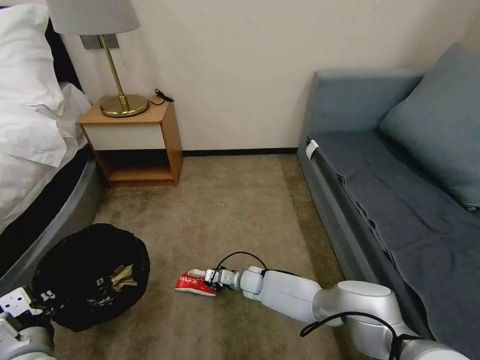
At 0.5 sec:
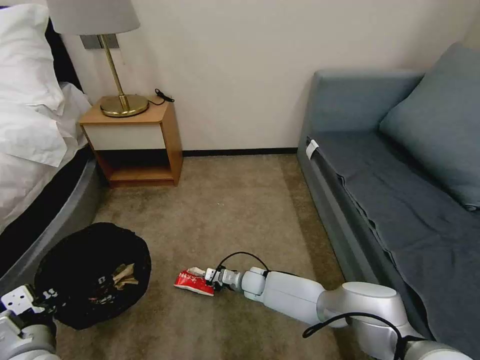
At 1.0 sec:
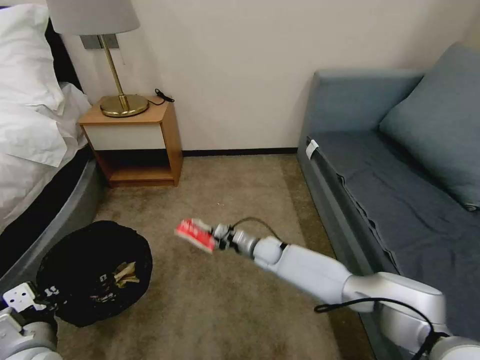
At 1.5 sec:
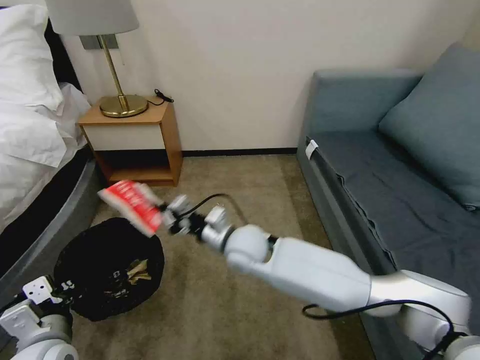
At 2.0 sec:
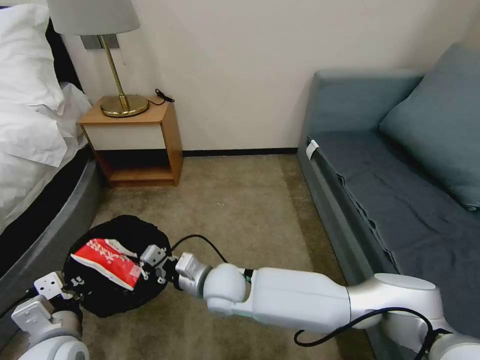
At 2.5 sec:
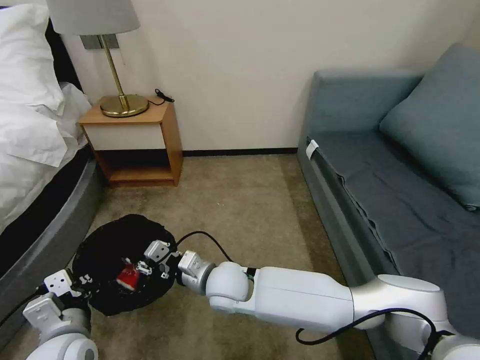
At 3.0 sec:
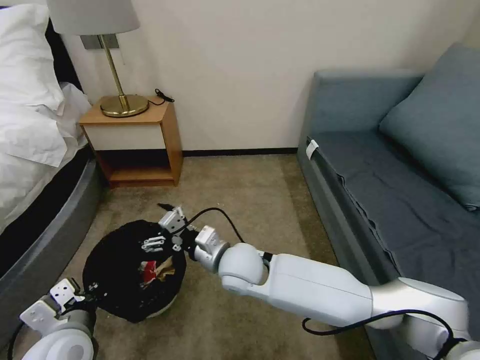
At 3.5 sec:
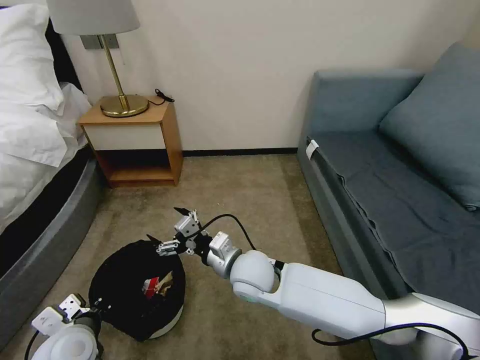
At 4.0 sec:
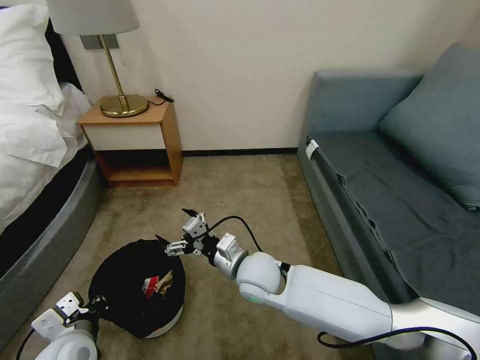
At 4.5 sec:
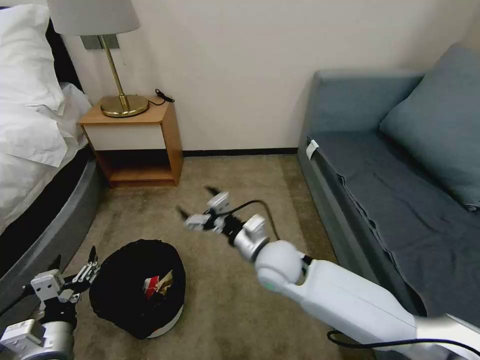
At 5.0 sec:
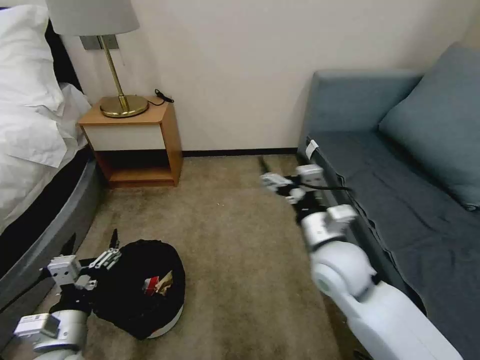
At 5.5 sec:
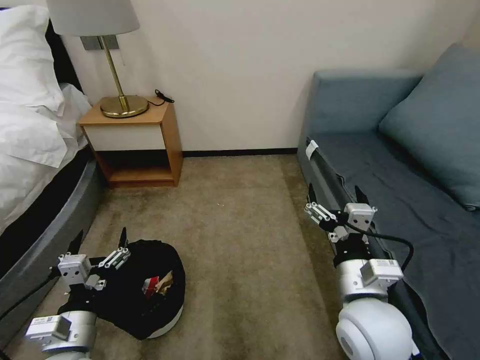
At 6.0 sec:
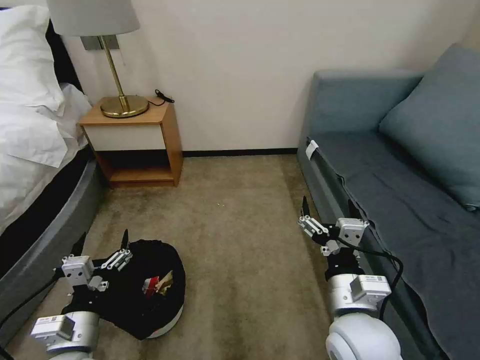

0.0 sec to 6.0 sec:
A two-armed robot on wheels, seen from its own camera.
Task of the whole recording: Pick up the trash bin, then pick up the garbage on the floor and place it into the trash bin.
0.0 sec to 2.0 sec: The right gripper is displaced upward, backward and to the left by about 25 cm, and closes up.
2.0 sec to 4.0 sec: The right gripper travels to the right by some 5 cm, and opens, while the left gripper goes about 5 cm downward.
4.0 sec to 6.0 sec: The right gripper moves to the right, backward and upward, roughly 20 cm, while the left gripper opens.

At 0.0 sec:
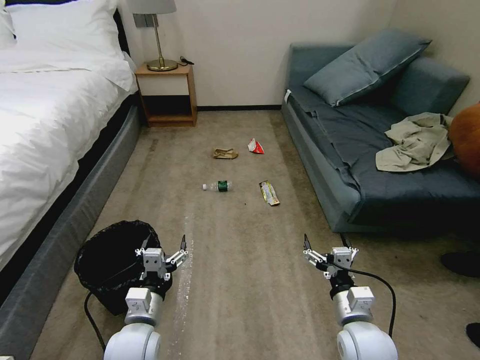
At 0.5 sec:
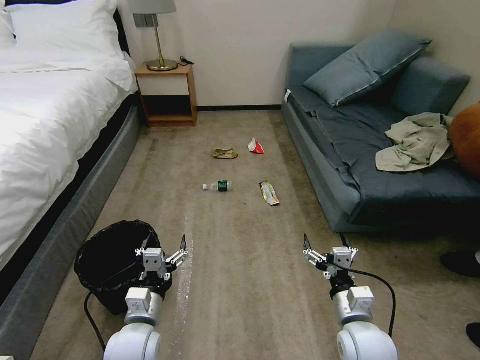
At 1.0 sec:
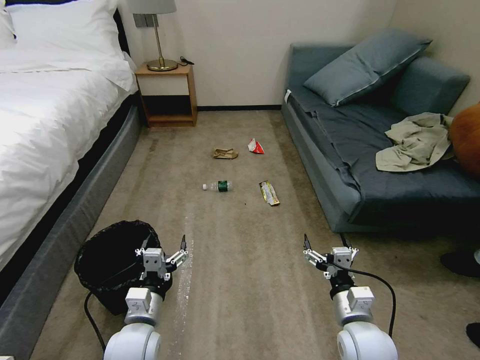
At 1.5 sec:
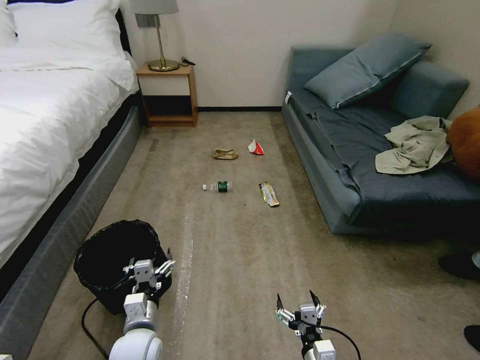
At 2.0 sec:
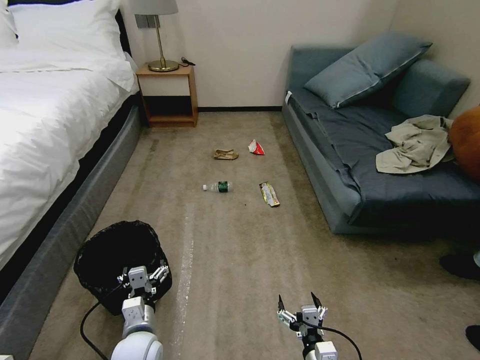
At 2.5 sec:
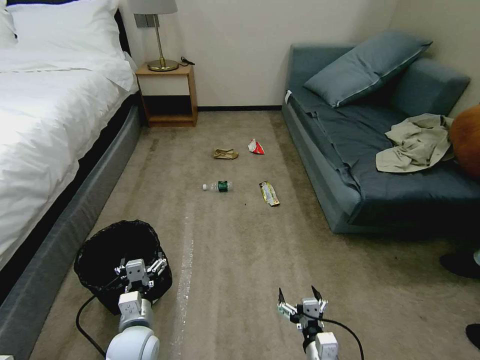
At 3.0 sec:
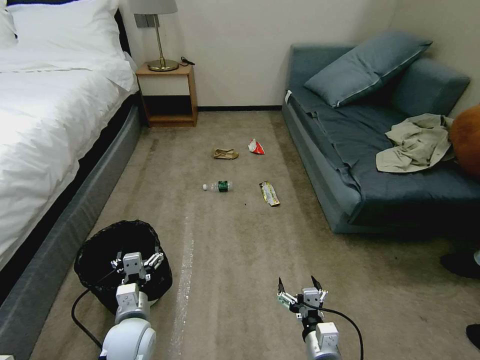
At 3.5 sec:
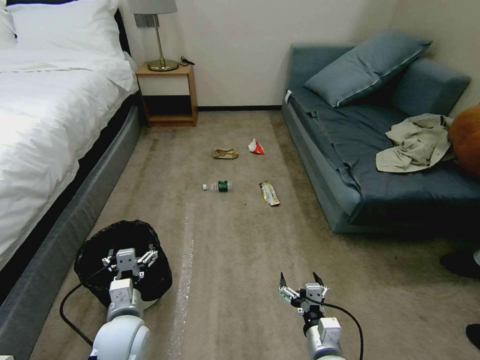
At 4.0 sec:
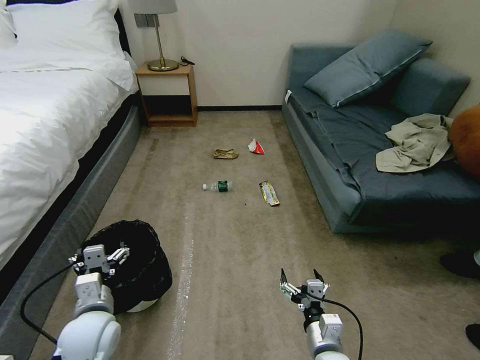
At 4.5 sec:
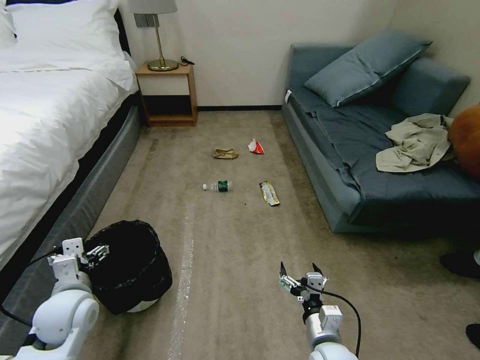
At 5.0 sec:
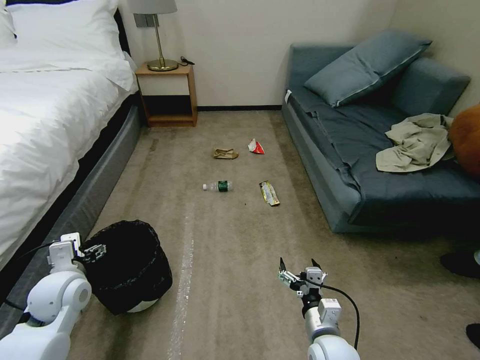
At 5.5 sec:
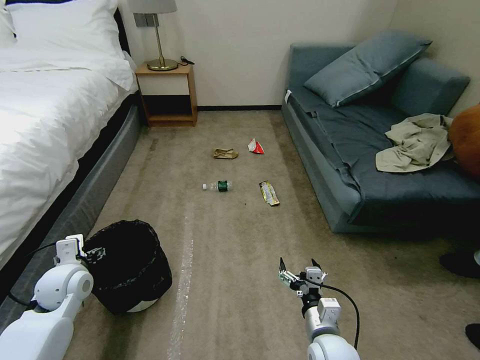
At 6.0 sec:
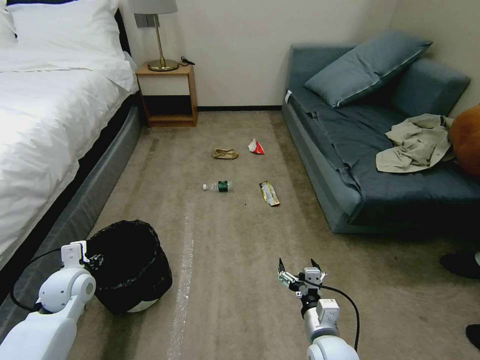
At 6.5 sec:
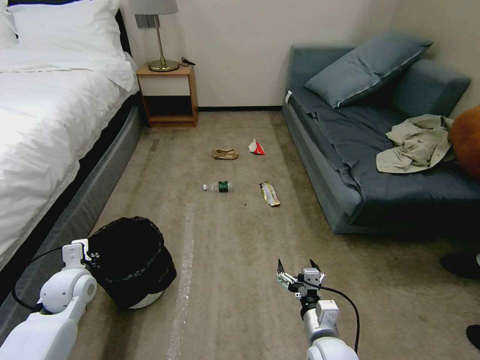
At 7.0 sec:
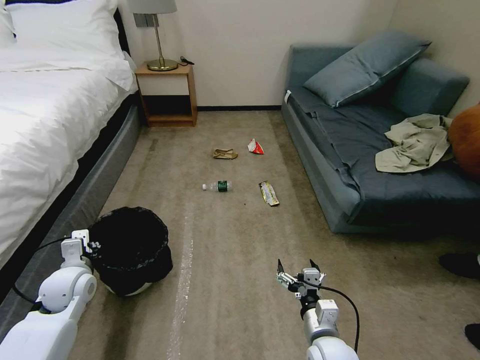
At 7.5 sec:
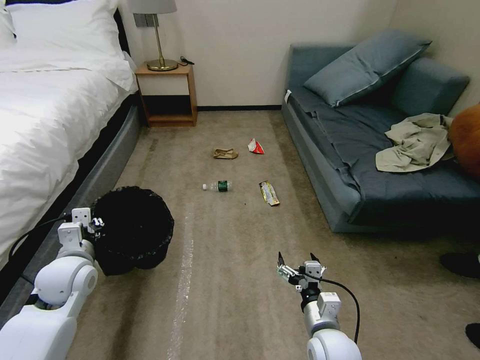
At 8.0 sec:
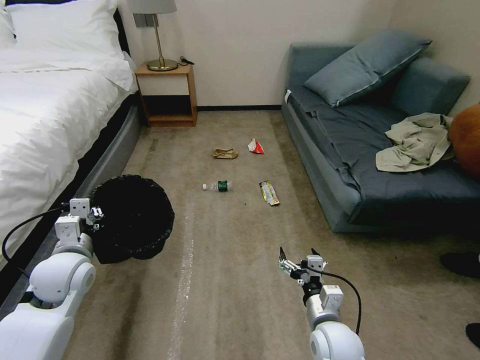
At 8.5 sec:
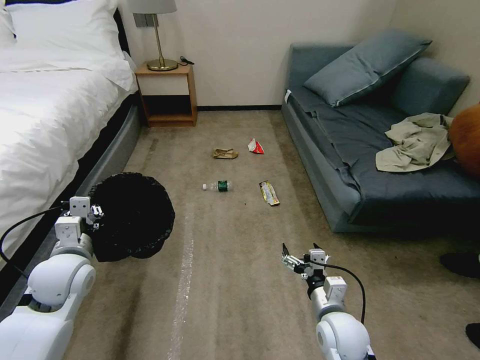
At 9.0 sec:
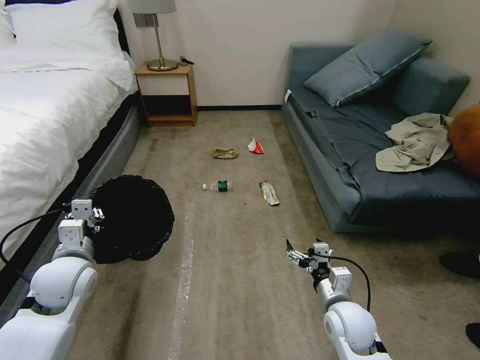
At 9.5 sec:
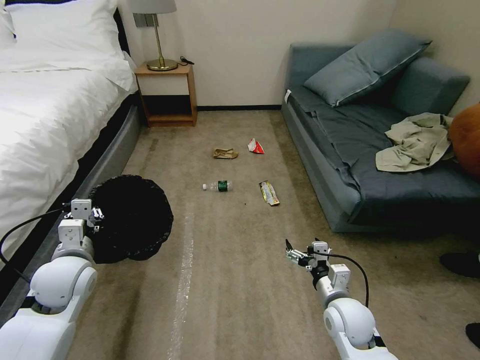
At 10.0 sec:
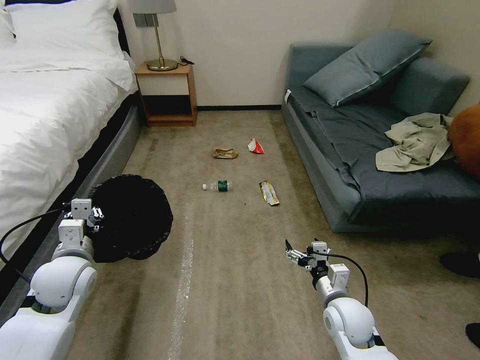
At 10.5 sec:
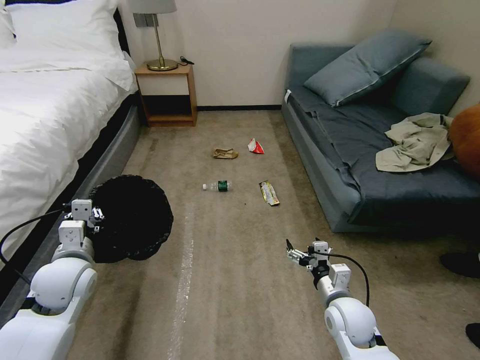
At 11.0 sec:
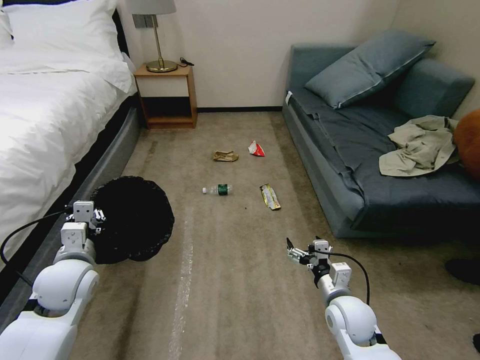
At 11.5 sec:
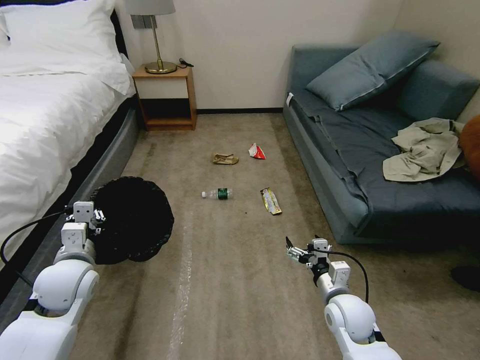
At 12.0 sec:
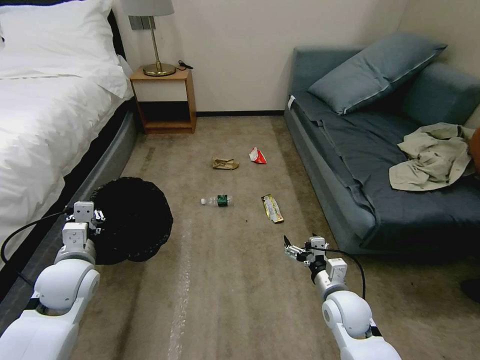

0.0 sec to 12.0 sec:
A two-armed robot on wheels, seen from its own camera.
Task of the whole recording: Pick up the trash bin, then pick up the garbage on the floor and place it into the trash bin.
2.0 sec to 4.0 sec: The left gripper heads upward and to the left, covering some 10 cm. The right gripper shifts approximately 5 cm forward.
4.0 sec to 6.0 sec: The left gripper moves to the left and forward, approximately 15 cm, and closes up.
6.0 sec to 8.0 sec: The left gripper travels upward by some 10 cm, and closes up.
8.0 sec to 10.0 sec: The right gripper ends up about 5 cm from where it was.

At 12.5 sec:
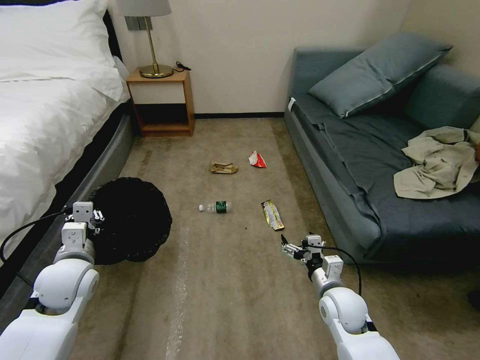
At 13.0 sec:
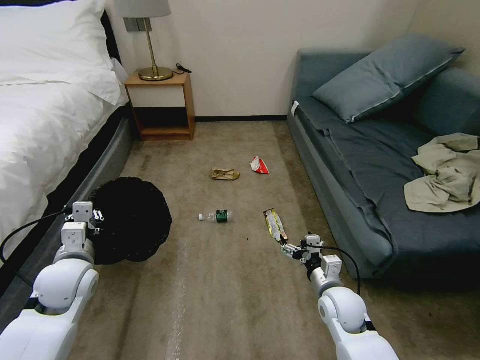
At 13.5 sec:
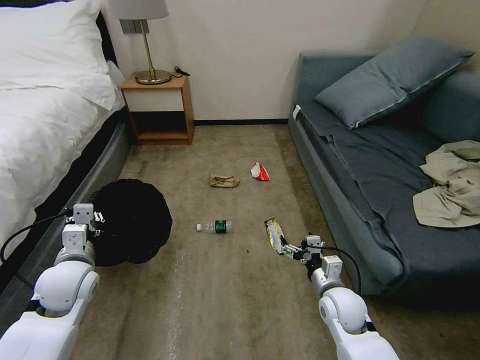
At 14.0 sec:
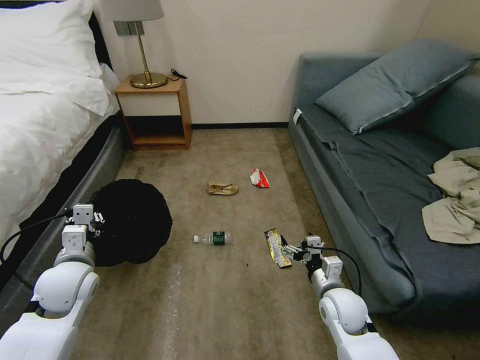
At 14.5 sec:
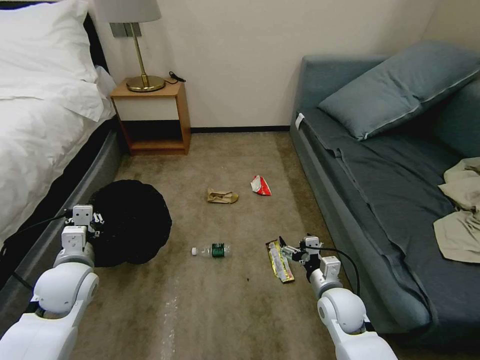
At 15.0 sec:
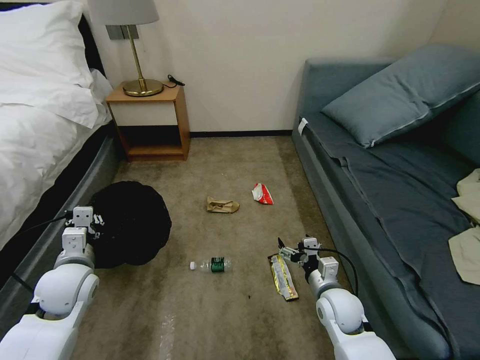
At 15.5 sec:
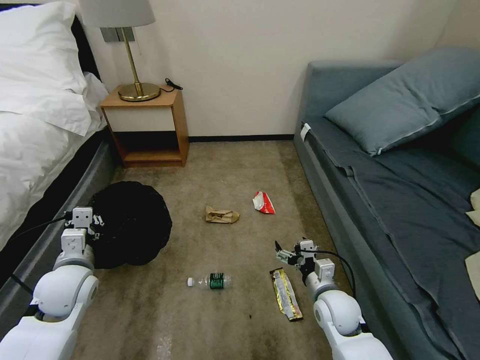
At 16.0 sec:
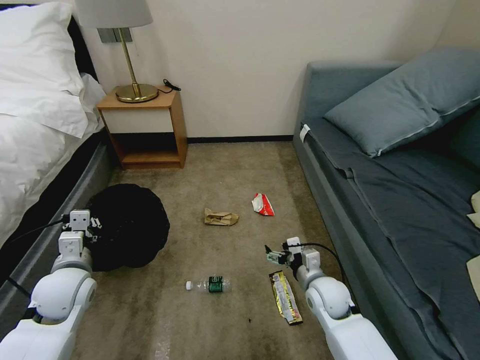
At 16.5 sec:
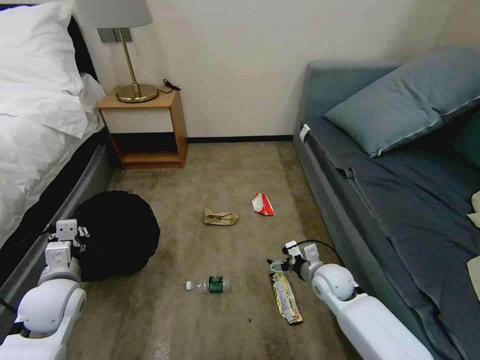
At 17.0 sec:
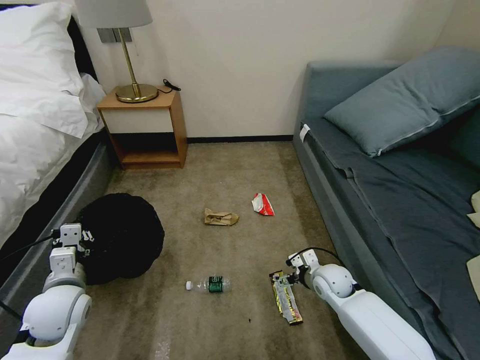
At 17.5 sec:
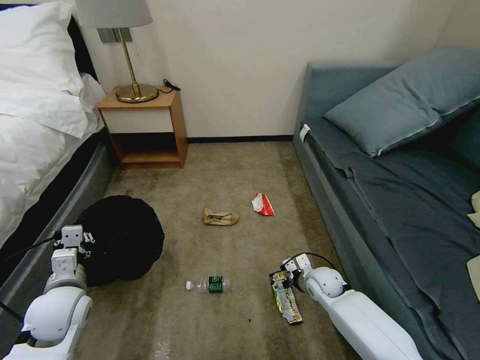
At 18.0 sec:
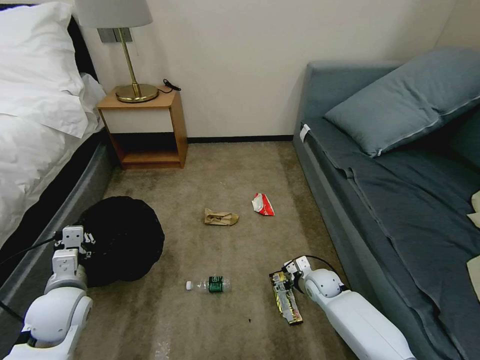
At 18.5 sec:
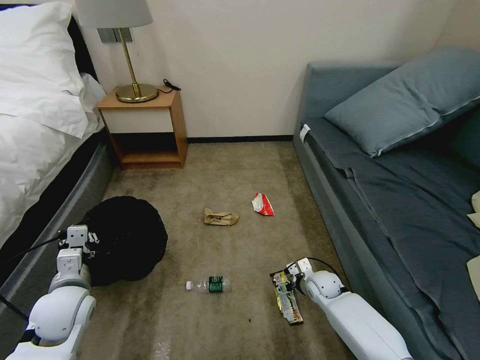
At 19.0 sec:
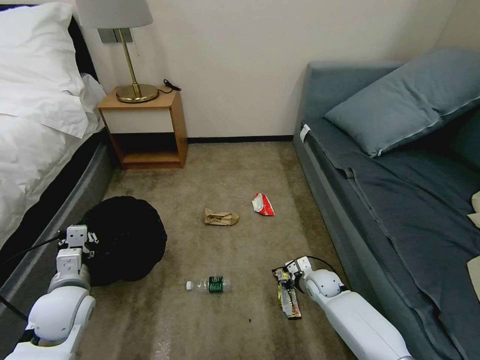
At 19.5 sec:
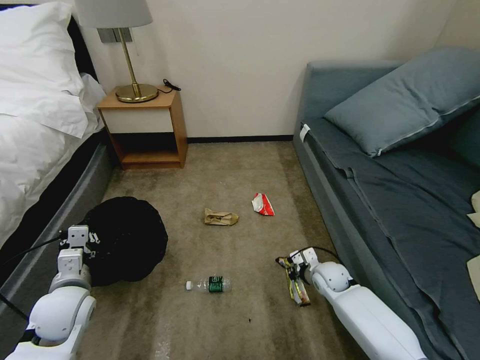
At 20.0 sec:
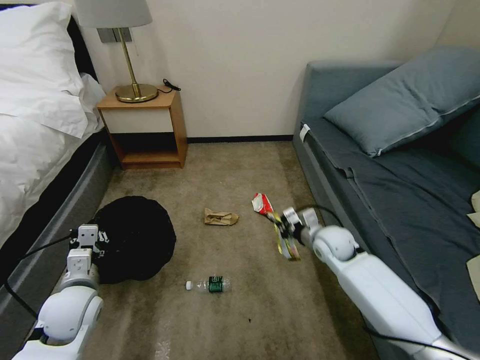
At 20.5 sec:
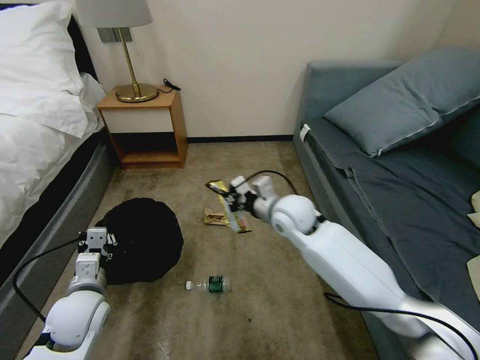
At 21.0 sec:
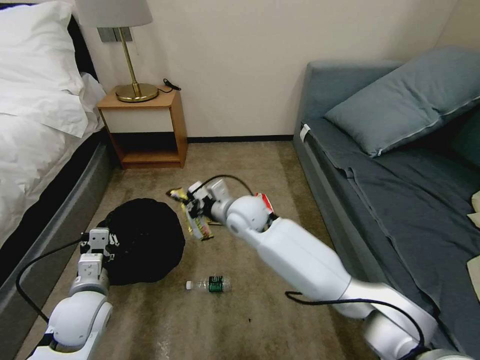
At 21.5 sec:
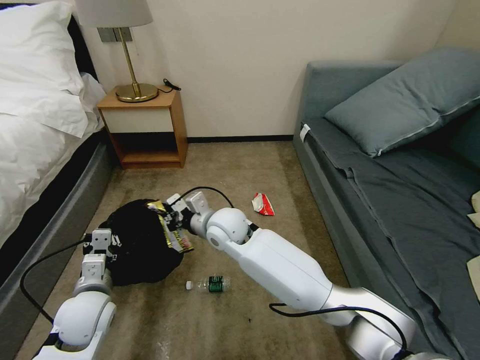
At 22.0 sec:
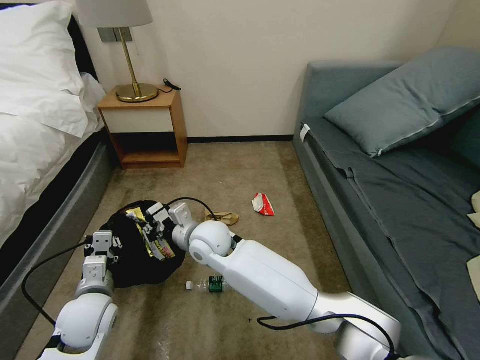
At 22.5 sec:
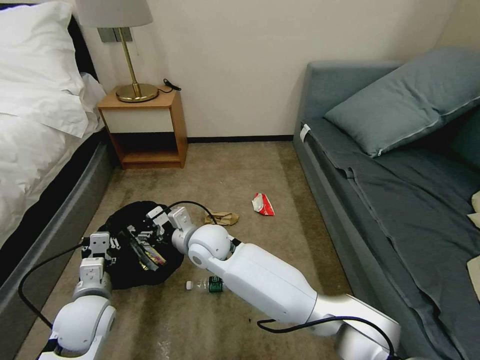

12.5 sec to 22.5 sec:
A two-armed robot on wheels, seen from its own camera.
Task of the whole recording: Pick up the trash bin, then pick up the garbage on the floor and place it into the trash bin.
14.5 sec to 16.5 sec: The right gripper is displaced forward by about 5 cm.
16.5 sec to 18.5 sec: The right gripper shifts about 10 cm downward.
18.5 sec to 20.5 sec: The right gripper is displaced upward and to the left by some 30 cm, and closes up.
20.5 sec to 22.5 sec: The right gripper moves to the left, some 20 cm, and opens up.
